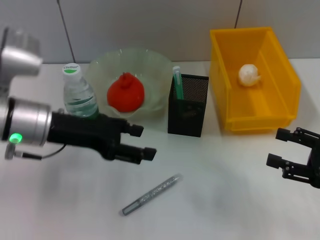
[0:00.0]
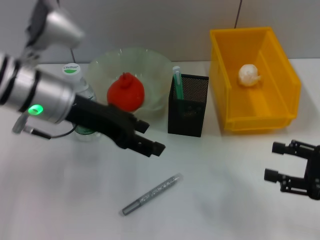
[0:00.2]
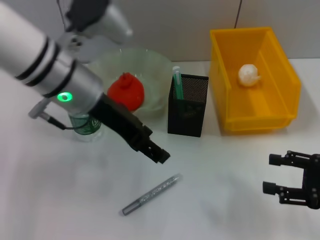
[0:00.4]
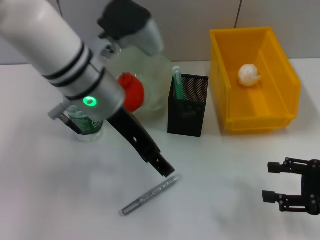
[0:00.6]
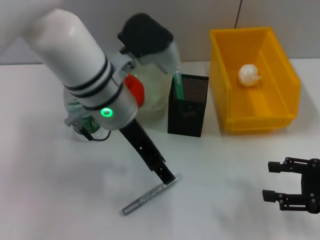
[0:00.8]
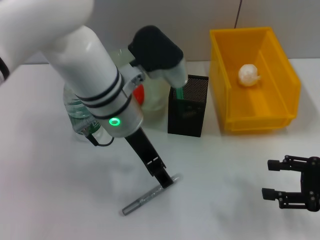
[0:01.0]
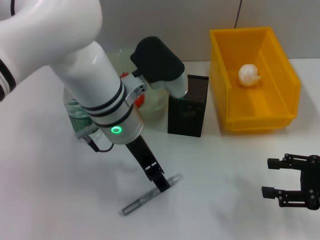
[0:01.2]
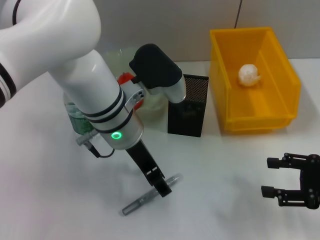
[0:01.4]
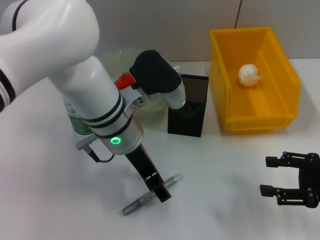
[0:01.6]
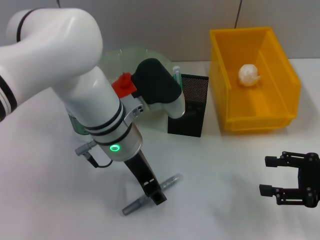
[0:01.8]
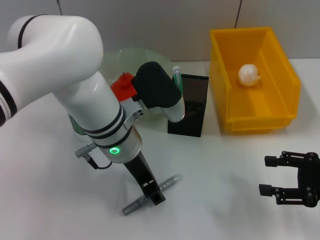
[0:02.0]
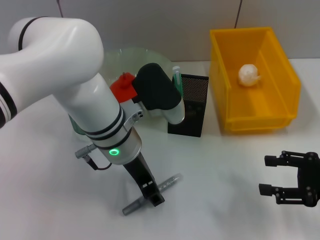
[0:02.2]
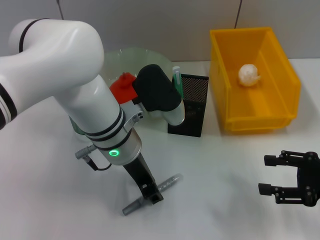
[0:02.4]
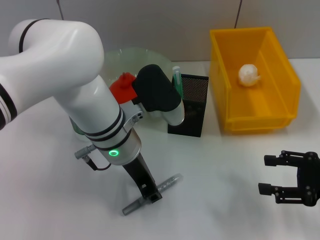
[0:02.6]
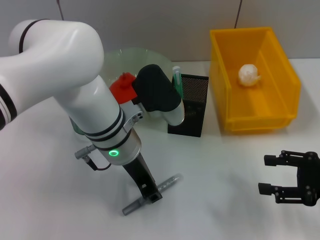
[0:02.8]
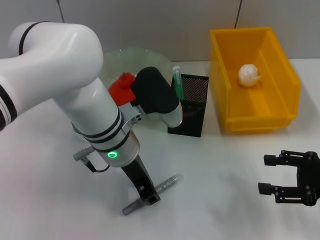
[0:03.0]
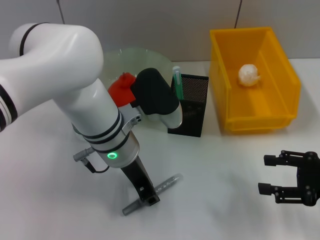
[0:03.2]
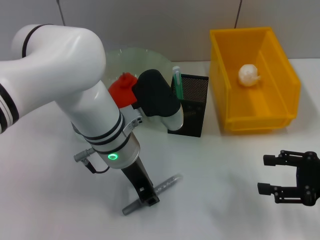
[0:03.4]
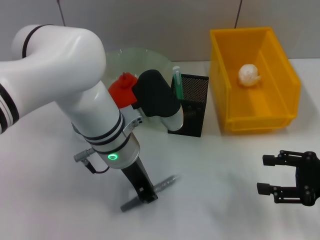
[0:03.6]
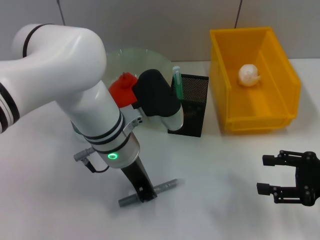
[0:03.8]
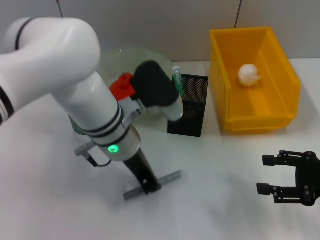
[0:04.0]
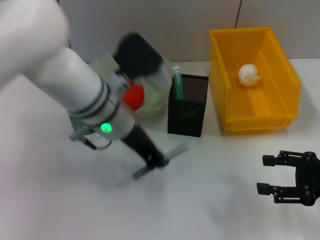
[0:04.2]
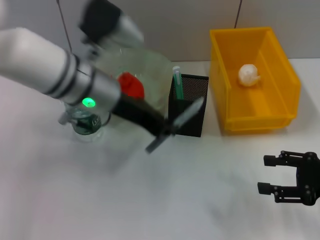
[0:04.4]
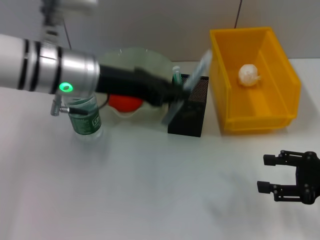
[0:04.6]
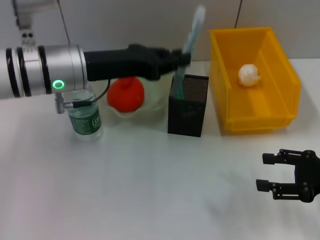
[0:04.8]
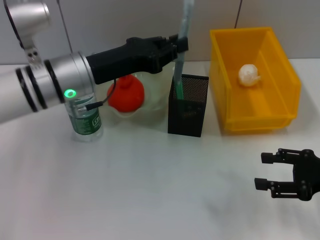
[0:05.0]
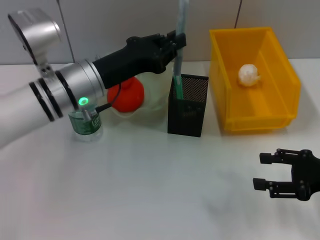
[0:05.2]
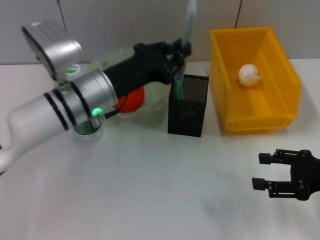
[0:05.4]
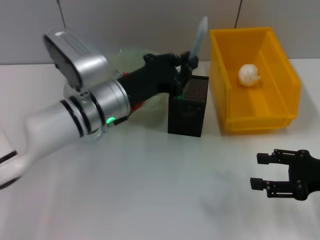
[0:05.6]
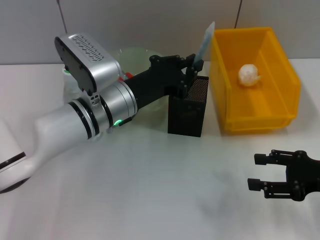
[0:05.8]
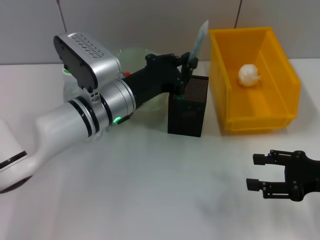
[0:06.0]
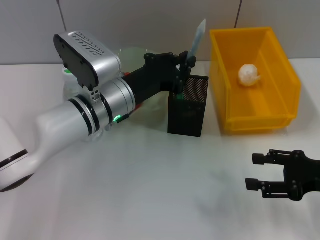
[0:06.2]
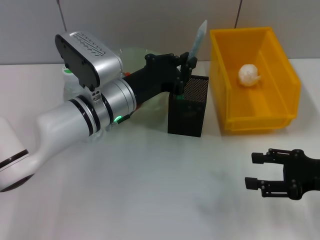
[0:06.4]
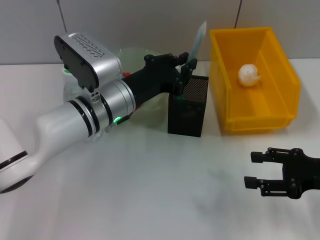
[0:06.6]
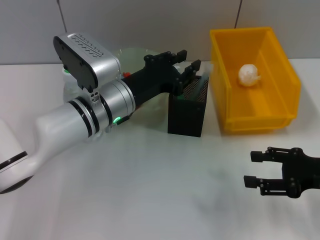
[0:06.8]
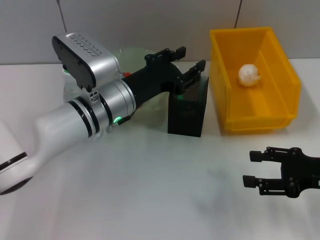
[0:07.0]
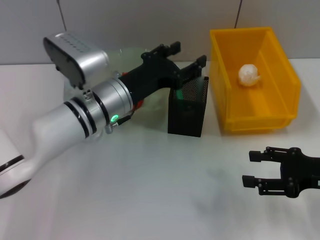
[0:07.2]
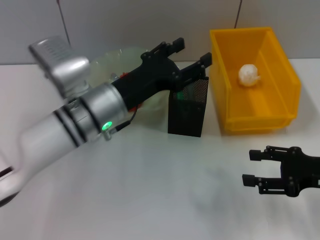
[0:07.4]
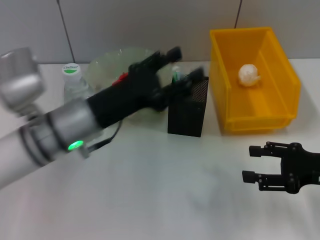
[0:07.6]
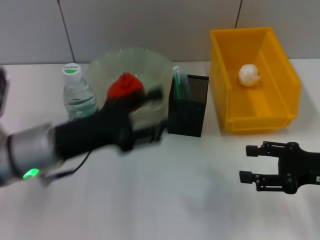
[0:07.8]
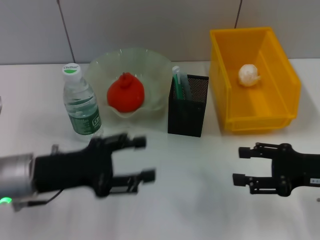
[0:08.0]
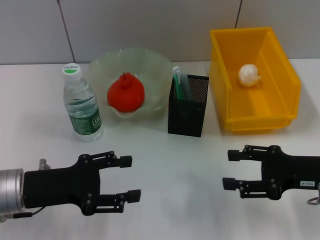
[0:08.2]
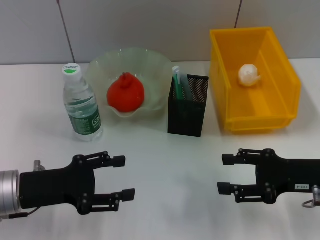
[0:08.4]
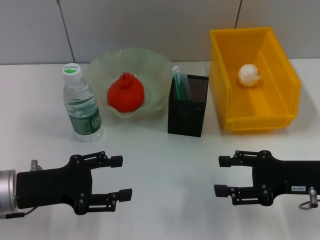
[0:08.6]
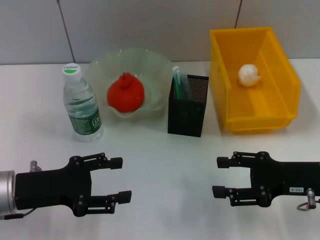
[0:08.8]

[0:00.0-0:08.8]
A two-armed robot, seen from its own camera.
Step, 0:00.0 to 0:03.6: Grab the gray glue with the left hand.
Step, 0:03.8 to 0:07.2: Place the gray glue into the pen holder with the left hand.
0:00.0 to 0:01.4: The left gripper goes approximately 15 cm to the right.
0:01.4 to 0:03.0: The left gripper closes its fingers.
0:03.0 to 0:04.4: The left gripper is displaced upward by about 5 cm, and closes.
0:04.4 to 0:05.8: The left gripper goes approximately 10 cm downward.
0:05.8 to 0:07.4: The left gripper opens its fingers.
0:07.4 to 0:08.8: The left gripper moves to the left and backward, approximately 15 cm.

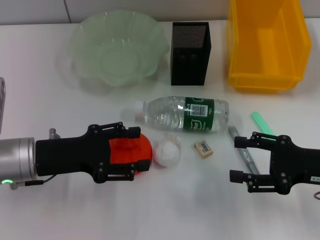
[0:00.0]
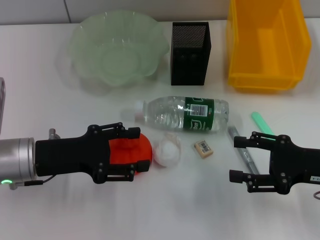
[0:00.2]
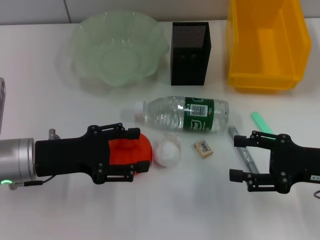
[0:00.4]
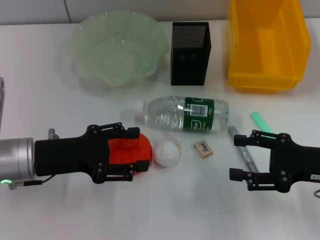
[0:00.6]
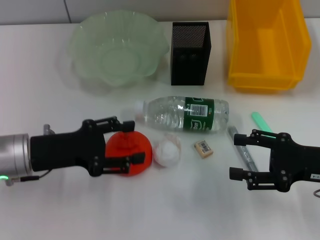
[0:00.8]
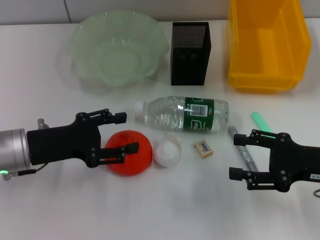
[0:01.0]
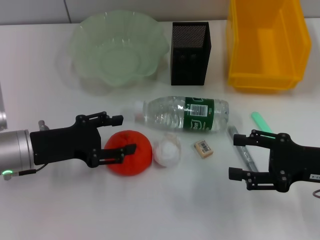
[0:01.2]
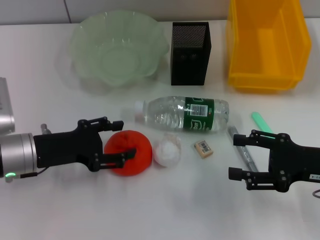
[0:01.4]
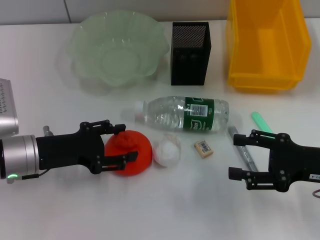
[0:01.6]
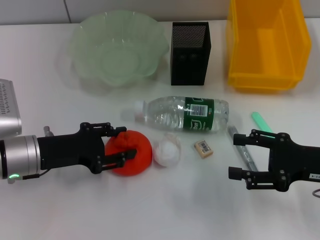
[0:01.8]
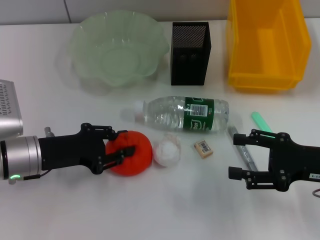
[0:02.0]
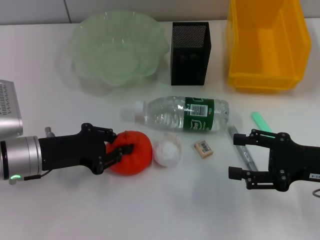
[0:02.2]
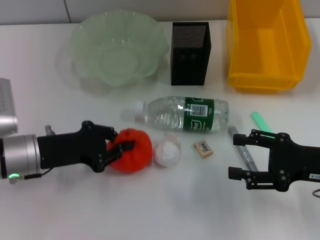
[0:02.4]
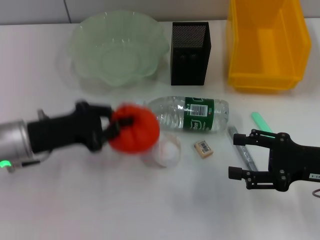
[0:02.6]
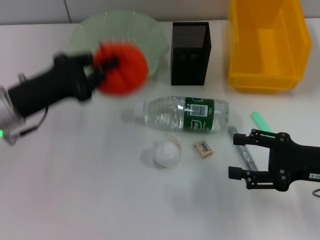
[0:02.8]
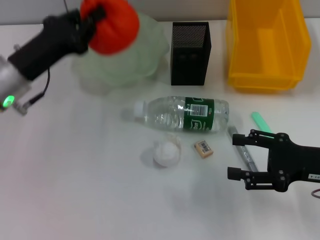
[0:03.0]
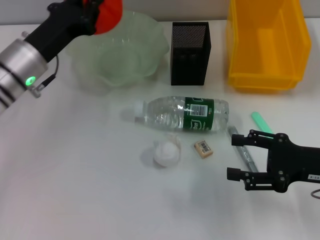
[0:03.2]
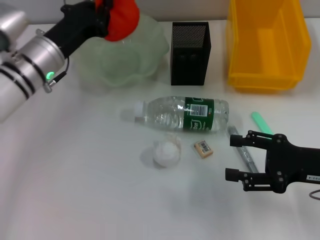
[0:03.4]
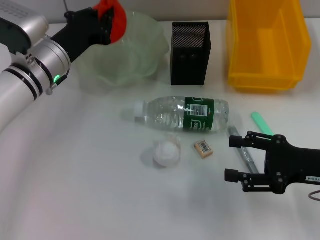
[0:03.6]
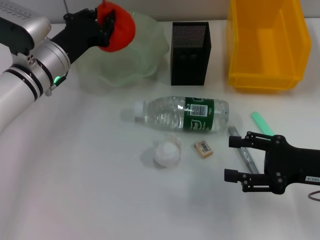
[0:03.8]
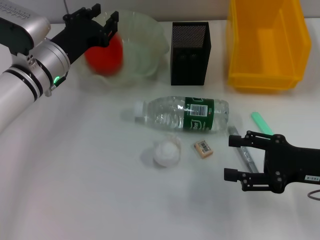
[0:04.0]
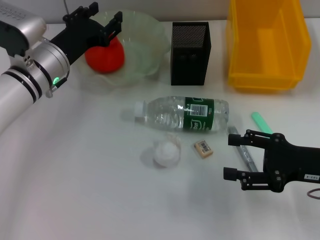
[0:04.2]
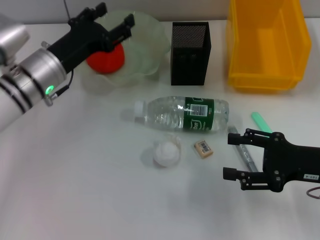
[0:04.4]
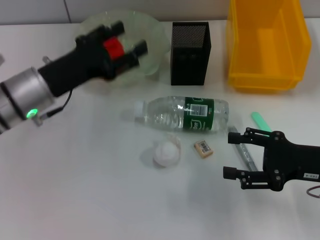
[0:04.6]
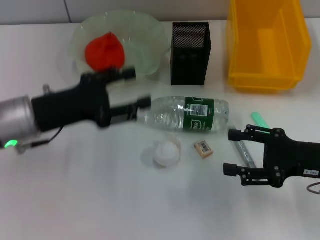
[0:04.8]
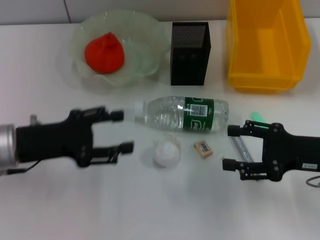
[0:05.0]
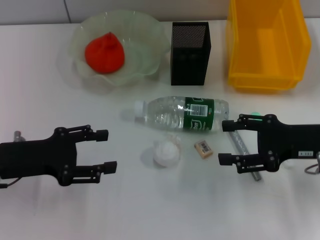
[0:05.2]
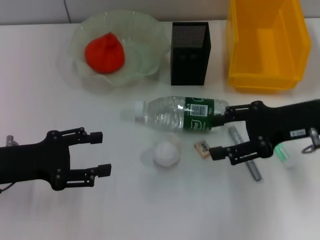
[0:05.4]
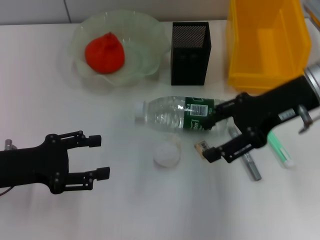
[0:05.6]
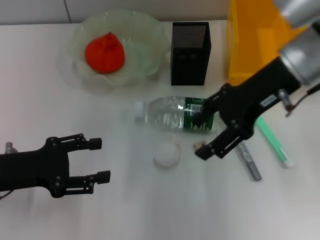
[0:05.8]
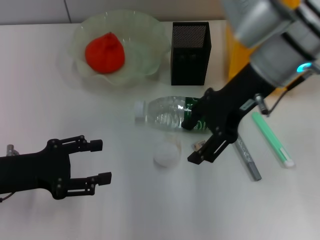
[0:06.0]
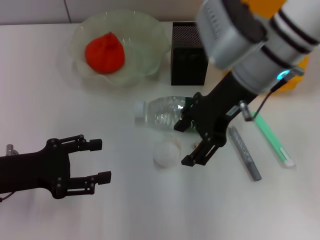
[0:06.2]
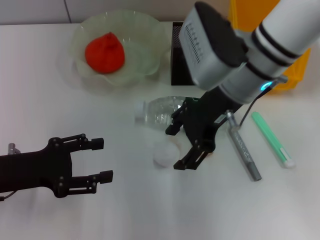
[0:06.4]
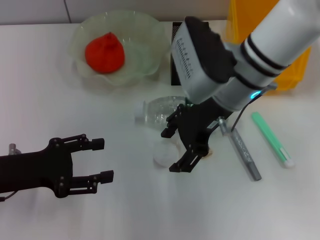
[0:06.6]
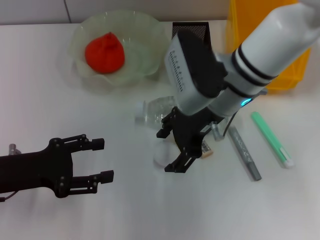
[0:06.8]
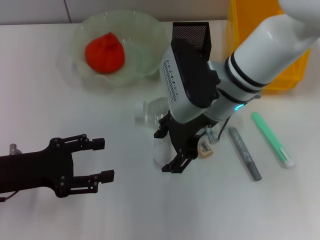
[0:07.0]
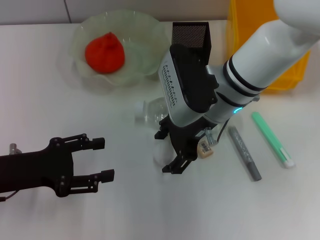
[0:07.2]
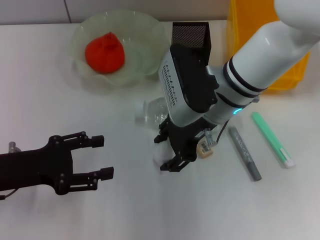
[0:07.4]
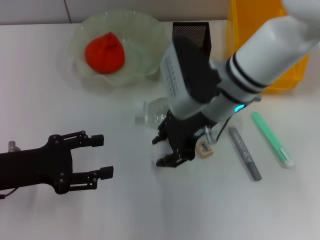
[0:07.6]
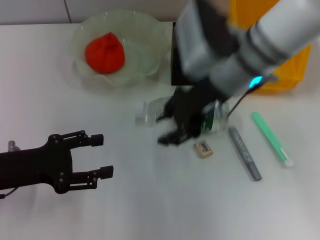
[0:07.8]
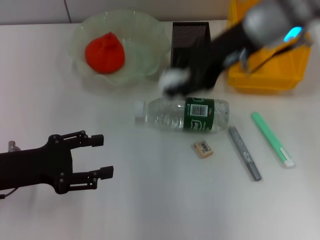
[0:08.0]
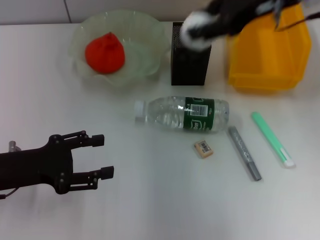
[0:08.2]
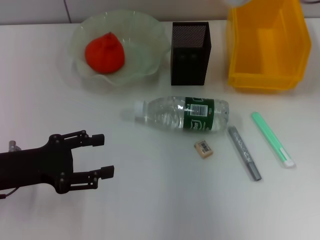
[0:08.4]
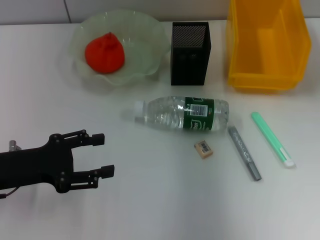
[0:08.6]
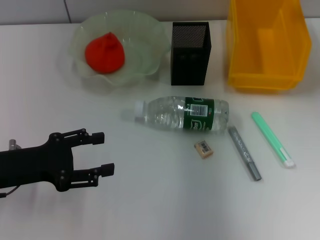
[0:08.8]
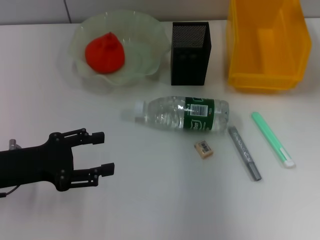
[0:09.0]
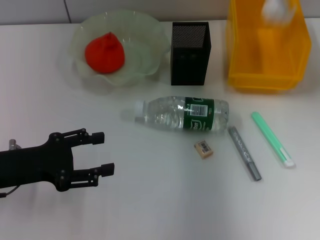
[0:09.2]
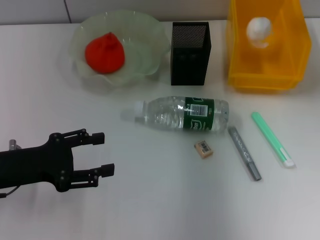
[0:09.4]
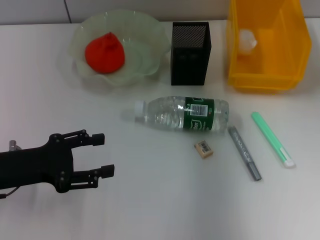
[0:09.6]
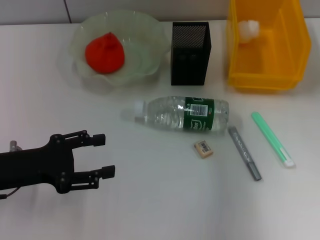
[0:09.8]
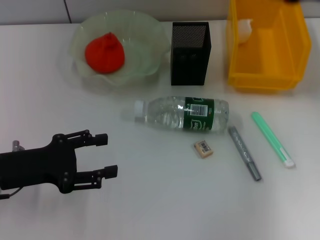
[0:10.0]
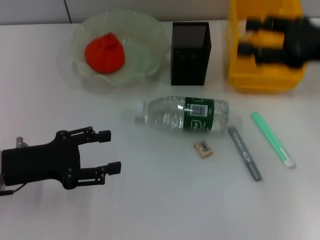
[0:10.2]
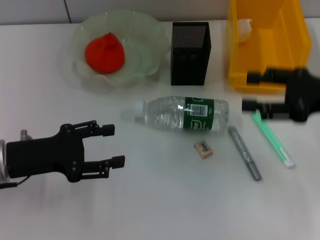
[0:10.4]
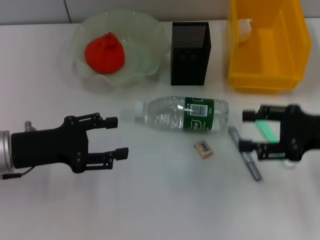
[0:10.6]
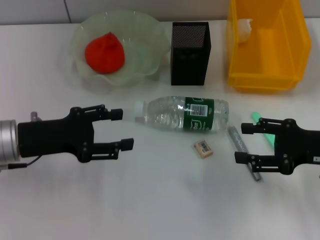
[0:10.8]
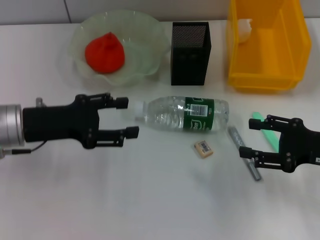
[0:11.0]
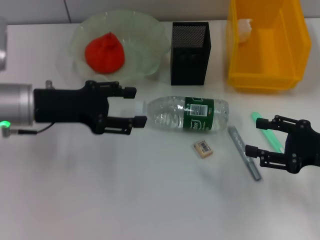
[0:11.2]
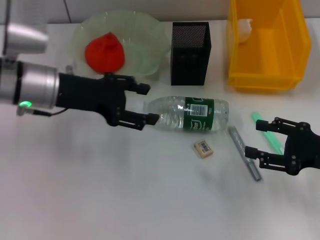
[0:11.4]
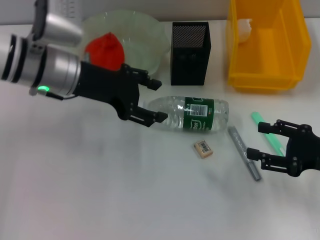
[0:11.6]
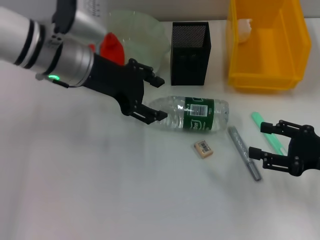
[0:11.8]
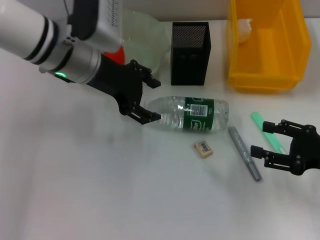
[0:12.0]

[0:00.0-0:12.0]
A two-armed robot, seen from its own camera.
Step, 0:00.0 to 0:02.0: Grab the orange with the left hand.
Step, 0:02.2 to 0:04.0: Place the orange into the fruit bowl with the left hand.
Step, 0:04.2 to 0:07.4: Grab the paper ball with the right hand.
Step, 0:07.6 to 0:10.0: Place the paper ball into the trash can with the right hand.
0:00.0 to 0:01.6: There are only small adjustments of the grippers.
0:01.6 to 0:03.0: The left gripper goes some 10 cm upward and forward, and closes up.
0:03.0 to 0:04.4: The left gripper changes place by about 5 cm, and opens its fingers.
0:04.4 to 0:06.0: The left gripper travels backward and to the left by some 15 cm, while the right gripper moves to the left, upward and forward, roughly 25 cm.
0:06.0 to 0:07.6: The right gripper shifts roughly 10 cm downward and to the left.
0:07.6 to 0:09.0: The right gripper goes roughly 20 cm to the right and forward.
0:09.0 to 0:10.4: The right gripper is displaced backward and downward by some 15 cm, and opens its fingers.
0:10.4 to 0:12.0: The right gripper is displaced downward and backward by some 10 cm. The left gripper moves forward, to the right and upward, some 20 cm.

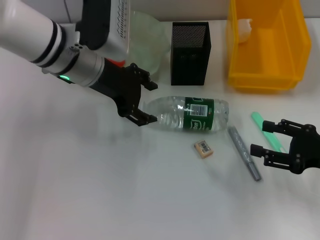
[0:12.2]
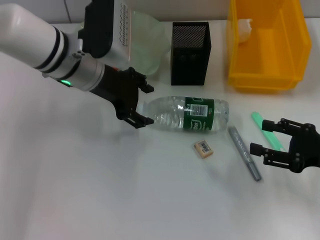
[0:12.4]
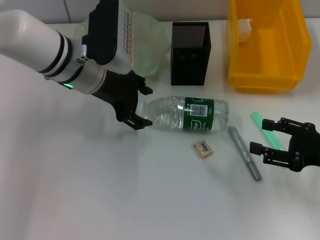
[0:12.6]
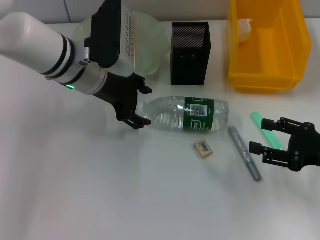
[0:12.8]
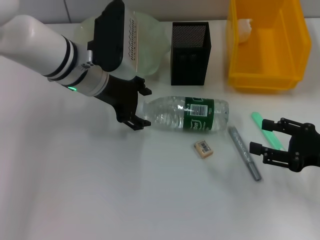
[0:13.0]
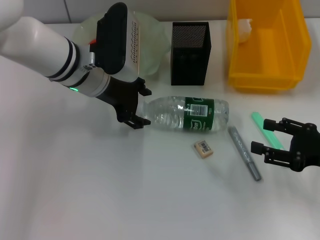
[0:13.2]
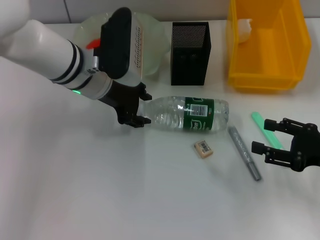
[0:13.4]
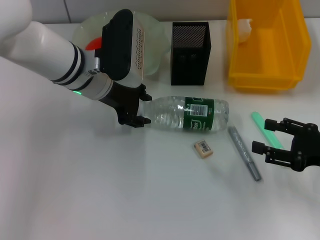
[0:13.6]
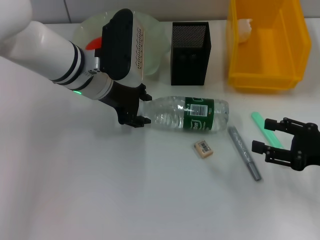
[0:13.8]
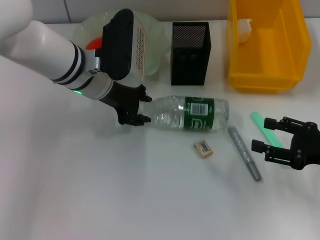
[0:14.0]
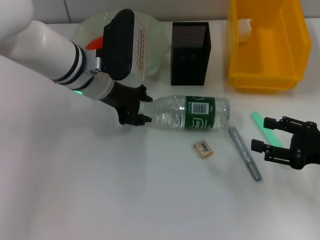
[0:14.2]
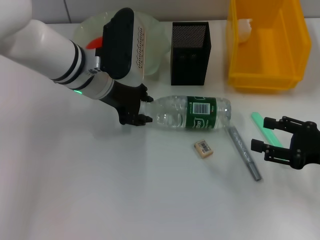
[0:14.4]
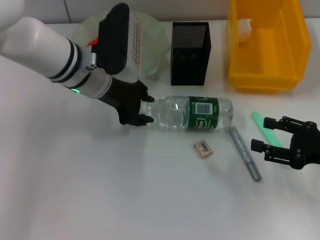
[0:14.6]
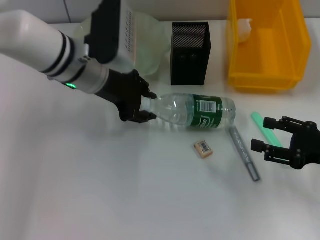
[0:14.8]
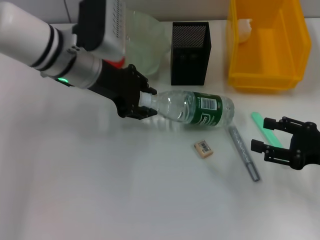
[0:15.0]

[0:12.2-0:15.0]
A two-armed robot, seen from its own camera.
0:12.2 to 0:15.0: The grippers stay close to where they were, moving slightly.
